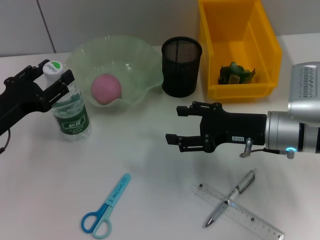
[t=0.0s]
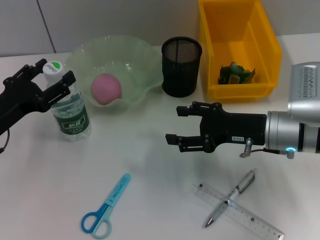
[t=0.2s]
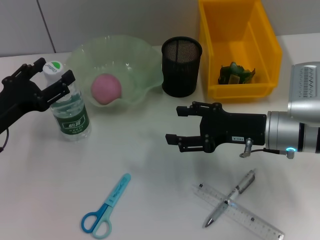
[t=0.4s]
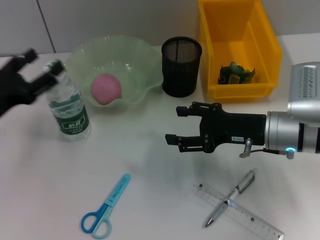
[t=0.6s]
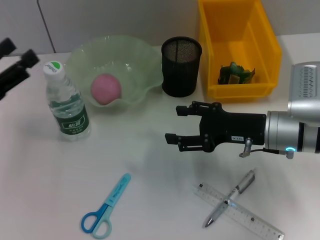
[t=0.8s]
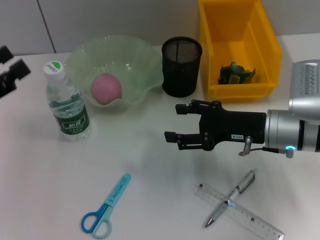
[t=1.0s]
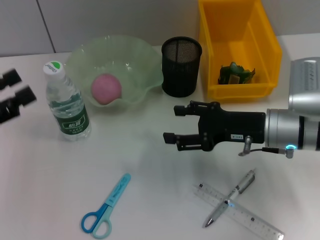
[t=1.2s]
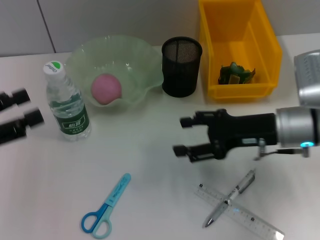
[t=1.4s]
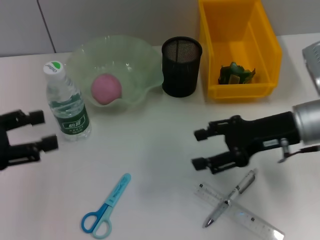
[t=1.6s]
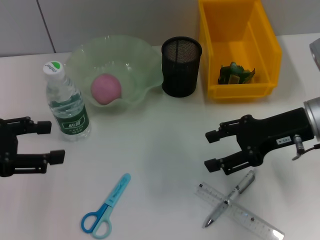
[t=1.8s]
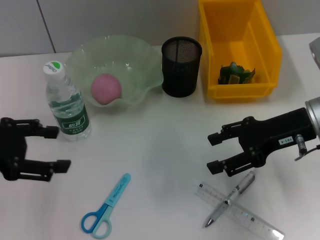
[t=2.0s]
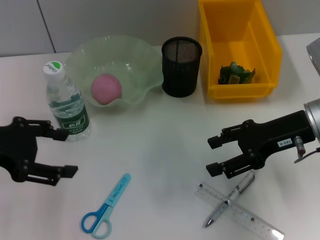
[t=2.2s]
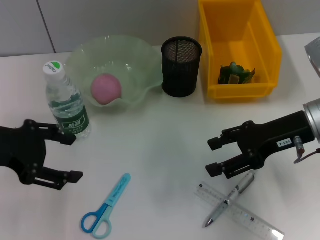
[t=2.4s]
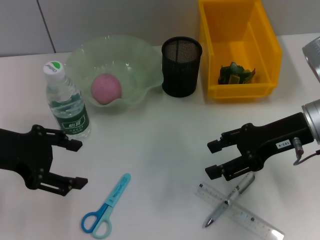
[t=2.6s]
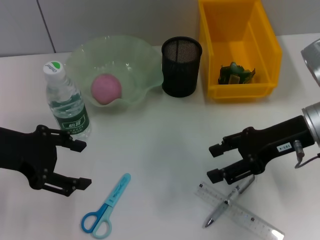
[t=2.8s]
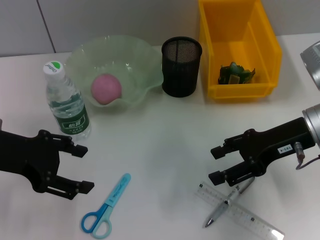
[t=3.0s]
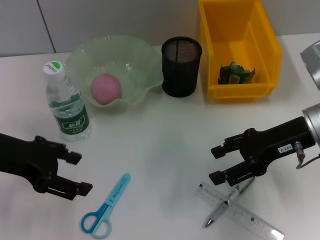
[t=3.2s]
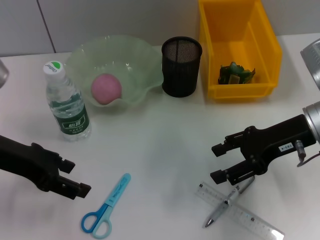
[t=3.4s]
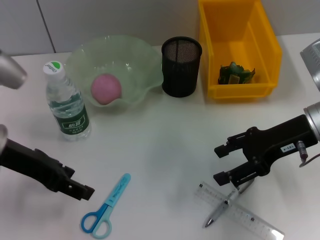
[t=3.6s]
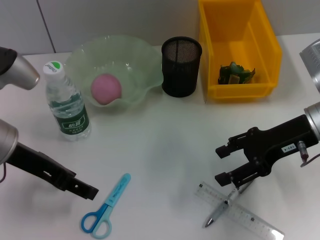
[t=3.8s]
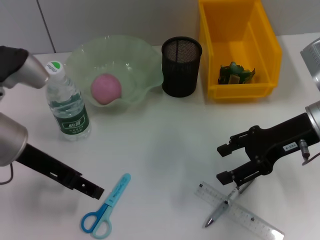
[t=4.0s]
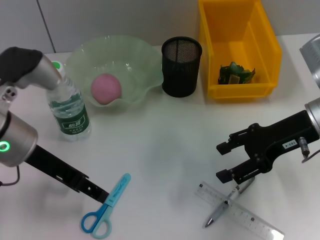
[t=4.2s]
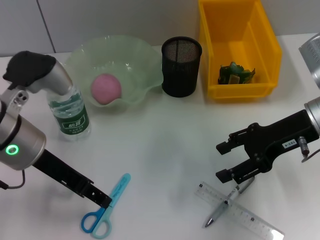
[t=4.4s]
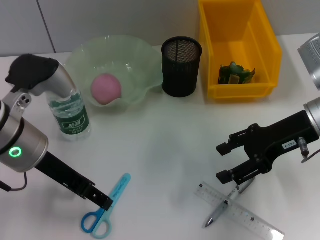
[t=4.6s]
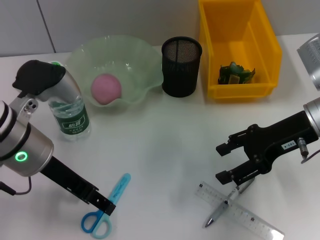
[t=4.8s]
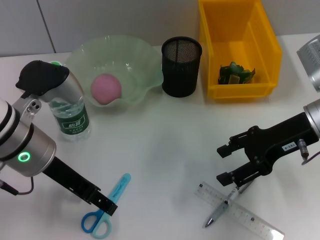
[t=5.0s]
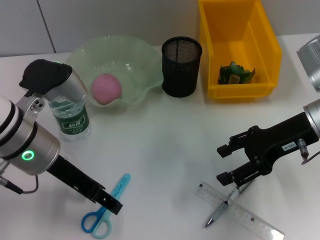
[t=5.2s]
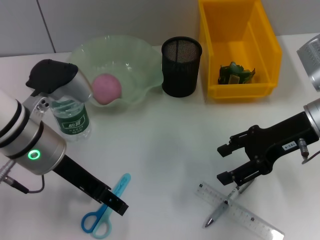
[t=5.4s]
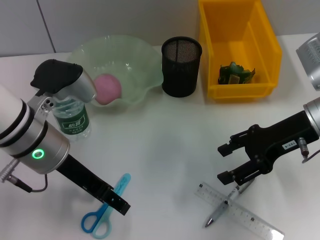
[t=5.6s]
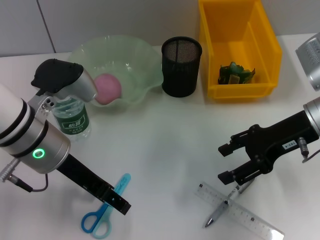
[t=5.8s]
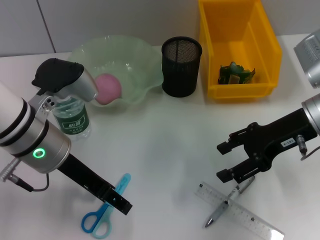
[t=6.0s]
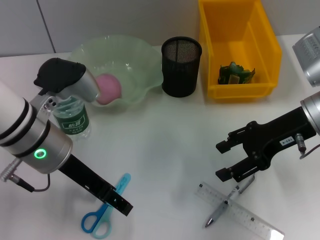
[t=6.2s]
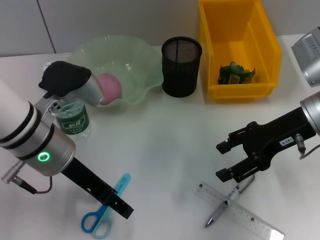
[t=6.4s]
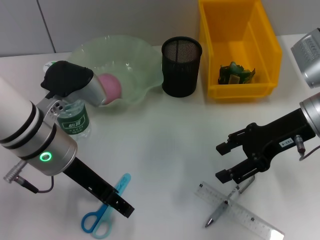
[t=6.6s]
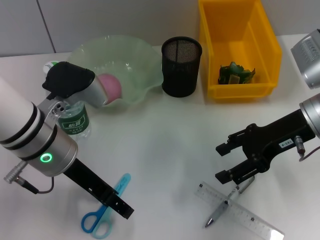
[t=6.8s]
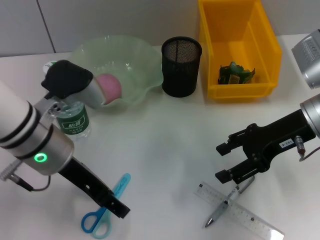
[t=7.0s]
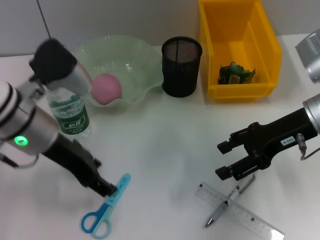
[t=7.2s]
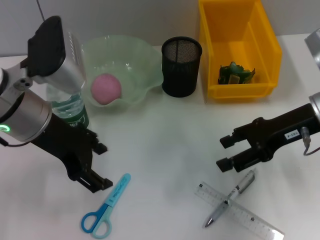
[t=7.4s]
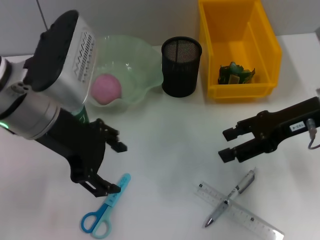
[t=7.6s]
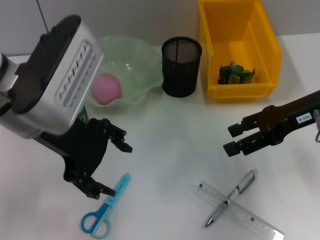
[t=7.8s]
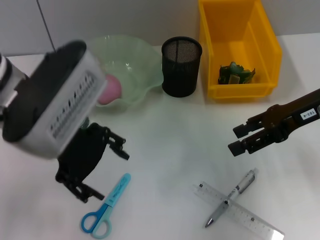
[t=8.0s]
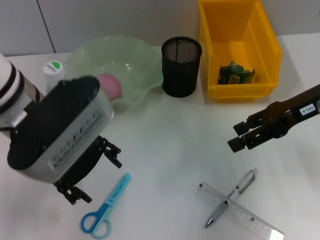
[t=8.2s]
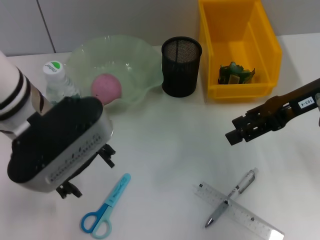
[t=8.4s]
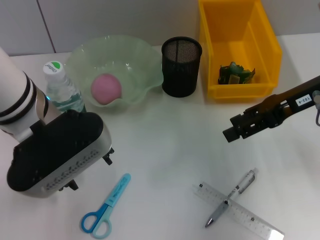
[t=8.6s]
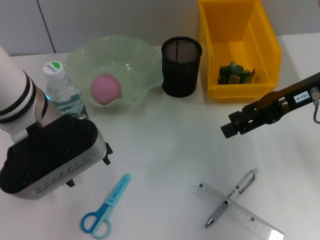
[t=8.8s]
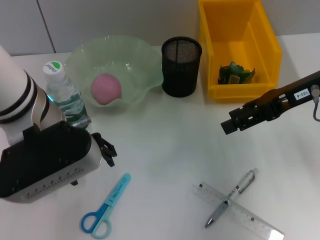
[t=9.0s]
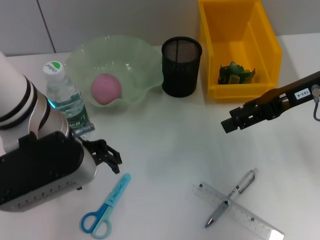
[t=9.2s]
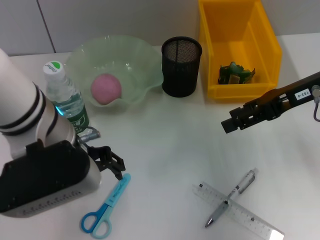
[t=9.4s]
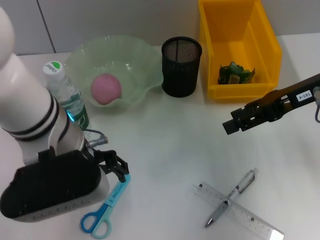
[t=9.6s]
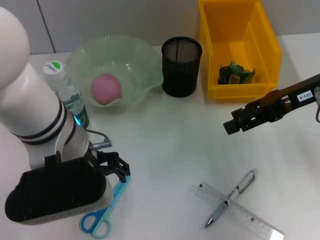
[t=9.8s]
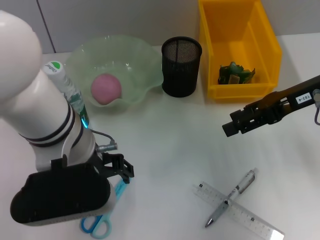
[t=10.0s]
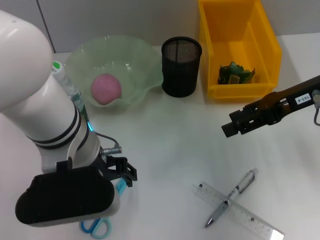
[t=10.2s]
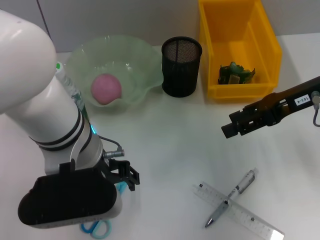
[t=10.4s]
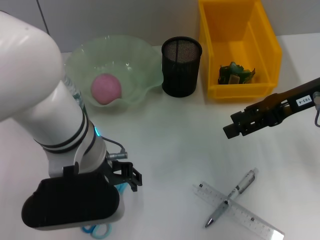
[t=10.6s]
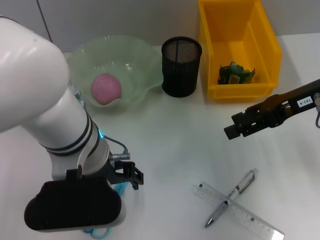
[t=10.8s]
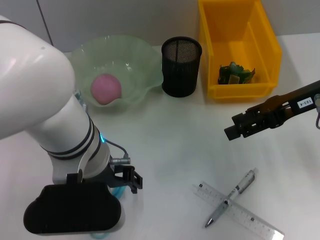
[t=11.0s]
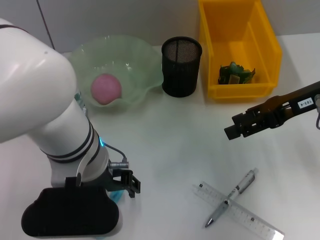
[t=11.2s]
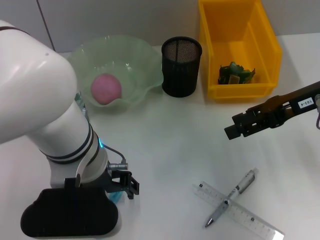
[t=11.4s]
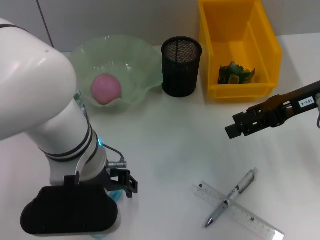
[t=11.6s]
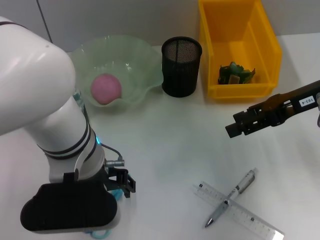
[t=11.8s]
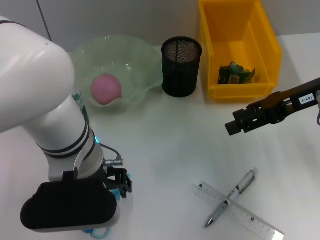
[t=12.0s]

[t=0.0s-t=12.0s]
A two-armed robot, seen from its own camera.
t=0.0s to t=1.6s: The left gripper travels upward by some 5 cm. The right gripper shifts by approximately 5 cm.
t=1.6s to t=3.0s: The left gripper is displaced to the right by approximately 5 cm.
t=3.0s to t=4.4s: The left gripper moves to the right, approximately 5 cm.
t=4.4s to t=6.0s: The grippers move only a little.
t=6.0s to t=7.6s: The left gripper moves upward, about 5 cm.
t=9.0s to t=10.4s: The left gripper shifts by about 5 cm.
t=10.4s to t=12.0s: The grippers move only a little.

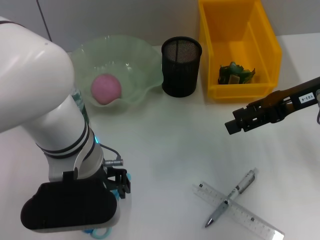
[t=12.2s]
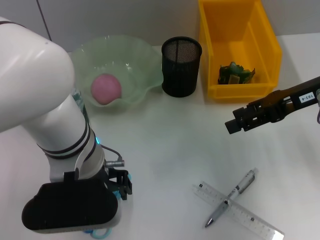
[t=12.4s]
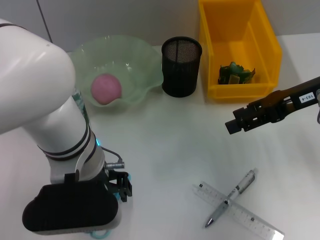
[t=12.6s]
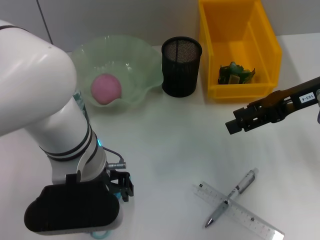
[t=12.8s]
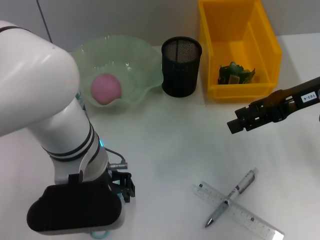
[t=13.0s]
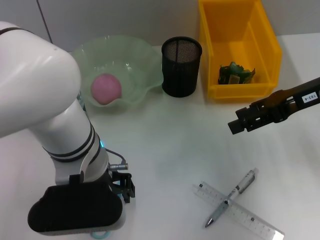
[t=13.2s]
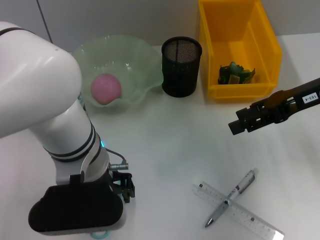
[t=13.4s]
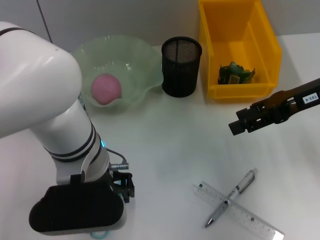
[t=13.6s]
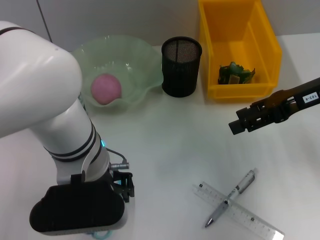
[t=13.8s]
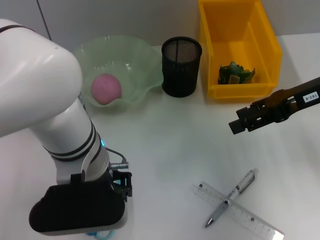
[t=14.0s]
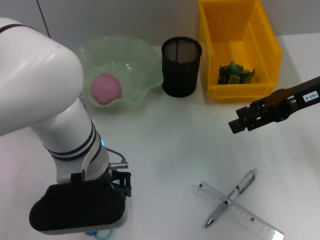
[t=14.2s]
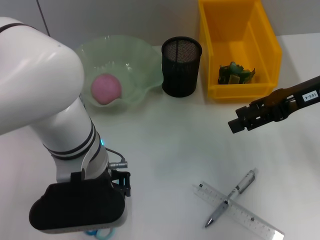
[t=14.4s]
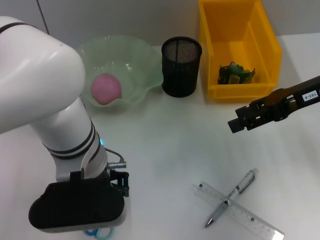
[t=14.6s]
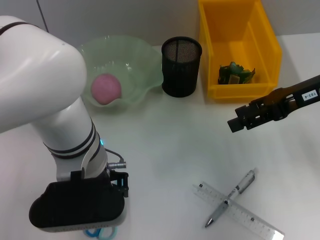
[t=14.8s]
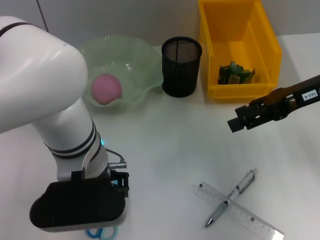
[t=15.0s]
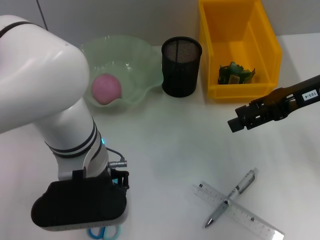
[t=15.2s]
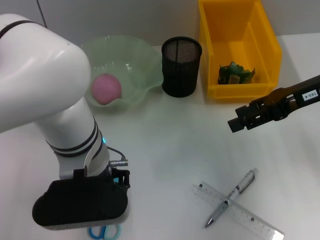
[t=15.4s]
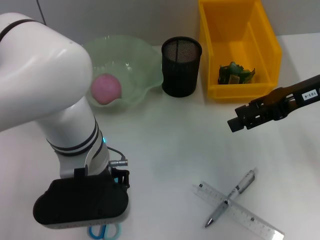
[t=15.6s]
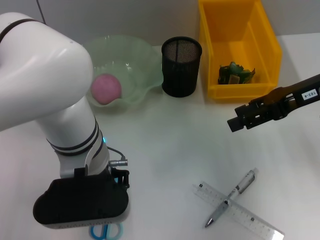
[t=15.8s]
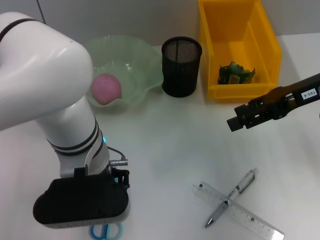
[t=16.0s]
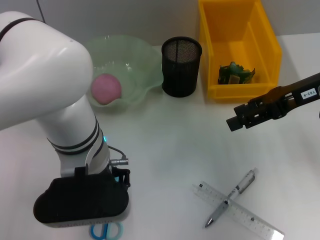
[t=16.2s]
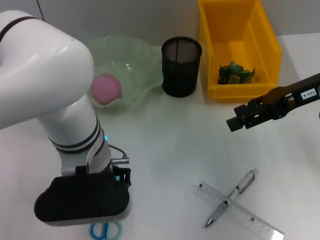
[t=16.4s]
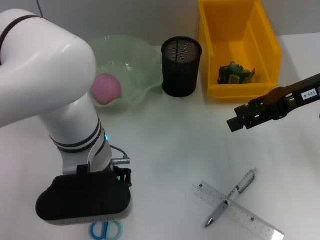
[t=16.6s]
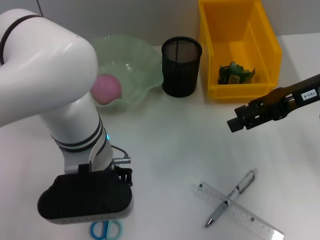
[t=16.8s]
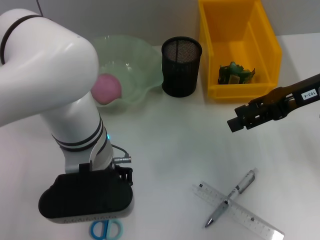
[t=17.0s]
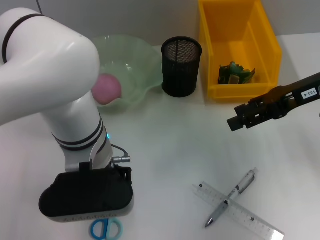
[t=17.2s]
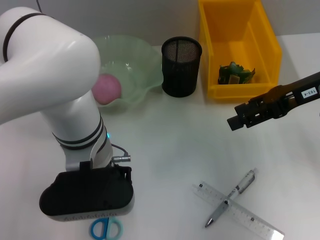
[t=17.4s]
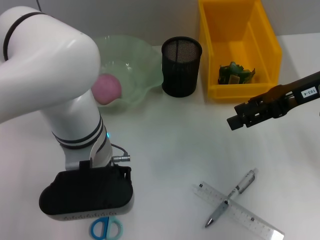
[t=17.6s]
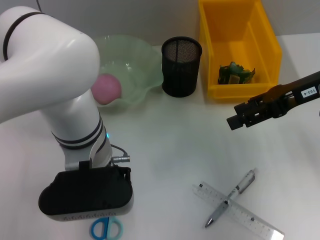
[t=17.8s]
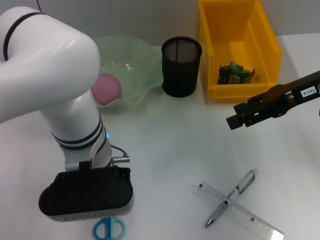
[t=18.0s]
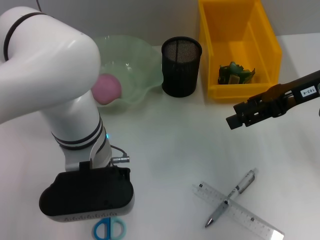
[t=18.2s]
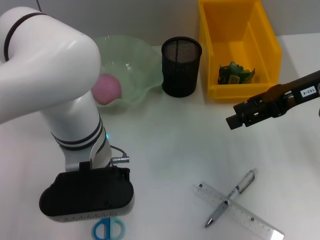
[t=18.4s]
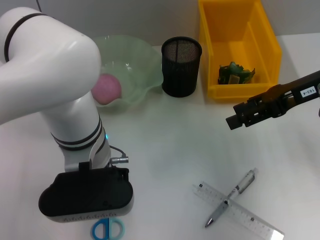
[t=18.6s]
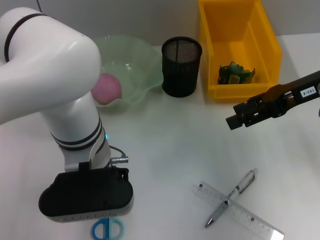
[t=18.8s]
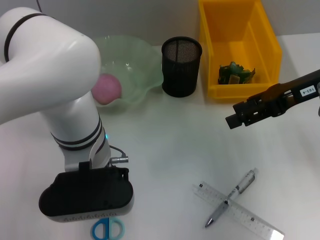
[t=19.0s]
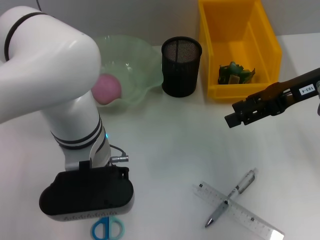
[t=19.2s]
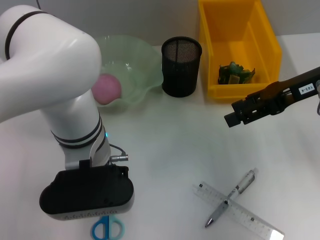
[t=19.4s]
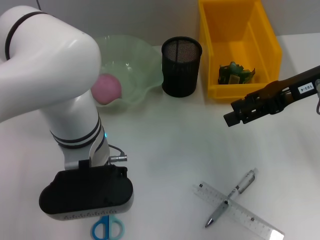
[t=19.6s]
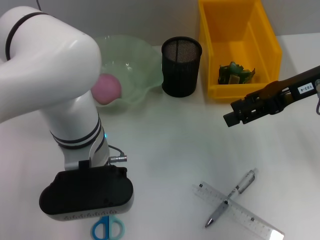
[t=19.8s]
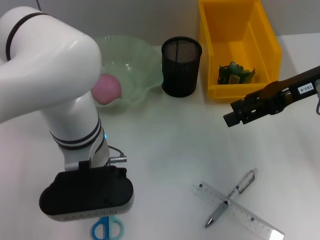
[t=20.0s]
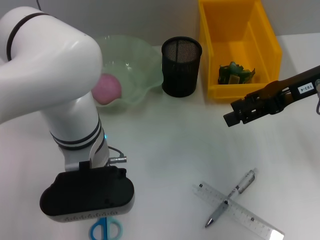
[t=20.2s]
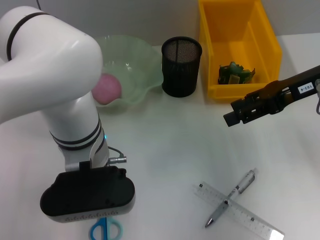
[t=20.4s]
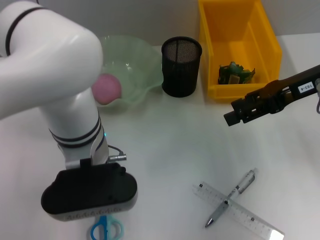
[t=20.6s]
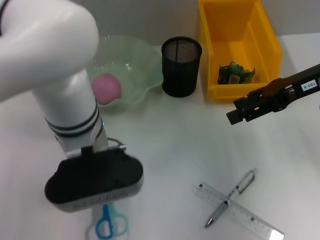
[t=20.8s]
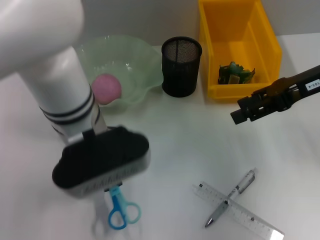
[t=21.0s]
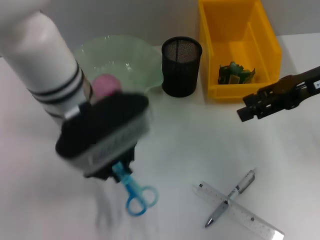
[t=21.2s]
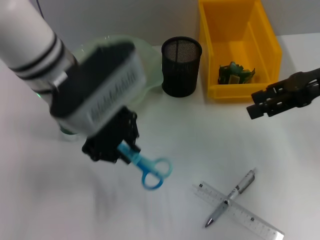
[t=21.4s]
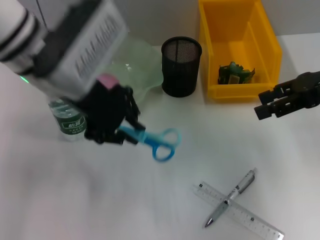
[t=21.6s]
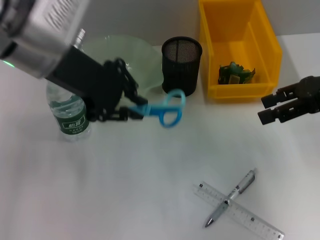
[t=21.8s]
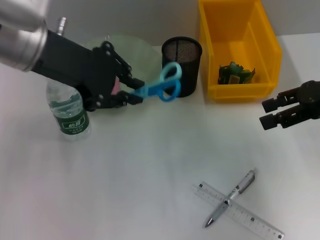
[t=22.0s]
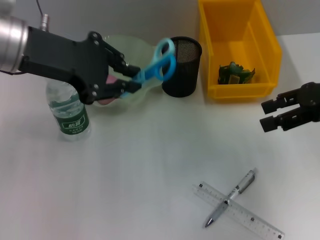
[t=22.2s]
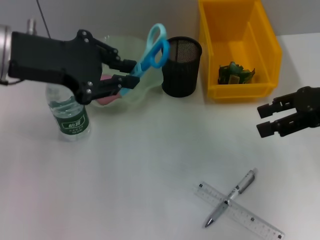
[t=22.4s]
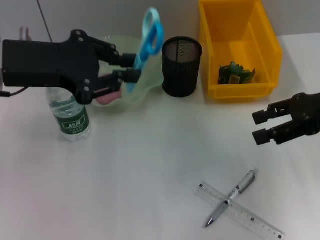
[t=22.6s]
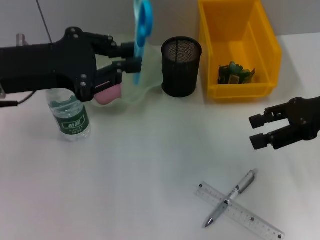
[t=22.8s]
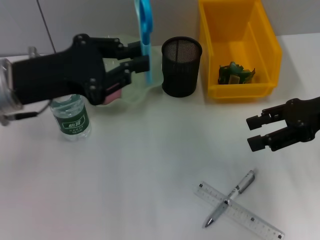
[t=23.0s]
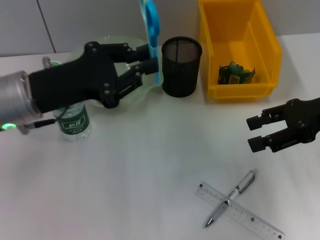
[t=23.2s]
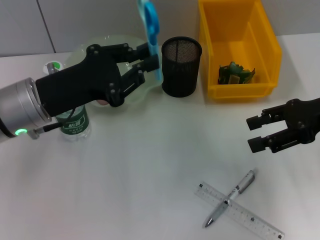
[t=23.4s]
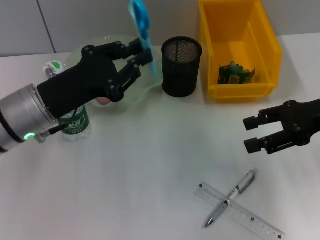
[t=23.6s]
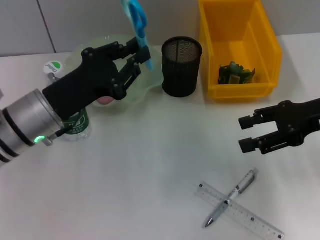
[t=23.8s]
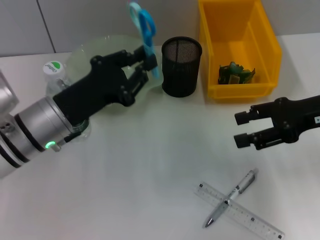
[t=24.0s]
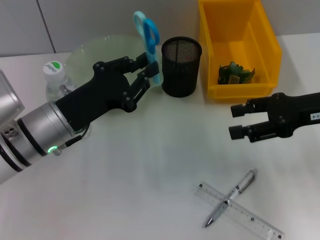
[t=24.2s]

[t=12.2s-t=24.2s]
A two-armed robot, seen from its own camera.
Step, t=12.2s to t=18.8s: Grab the blue scissors with the left hand.
t=12.2s to t=15.2s: Neither gripper changes place.
t=15.2s to t=19.8s: Both grippers stay about where they are.
t=19.8s to t=21.2s: The left gripper moves upward, some 5 cm.
t=21.2s to t=22.6s: The left gripper moves to the left, some 10 cm.
t=22.6s to t=24.2s: The left gripper moves downward, approximately 15 cm.
